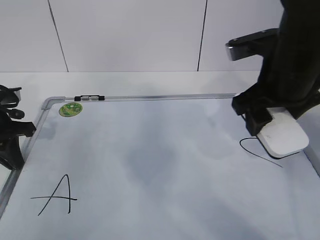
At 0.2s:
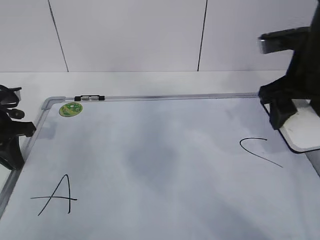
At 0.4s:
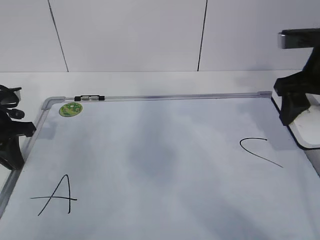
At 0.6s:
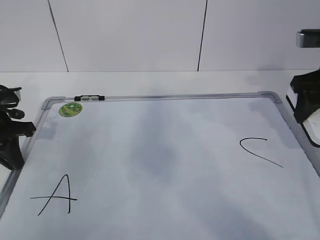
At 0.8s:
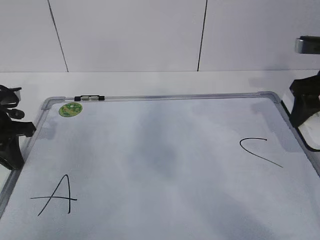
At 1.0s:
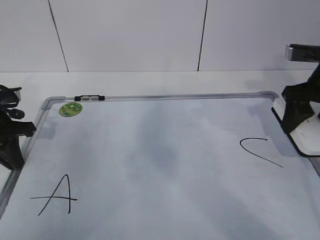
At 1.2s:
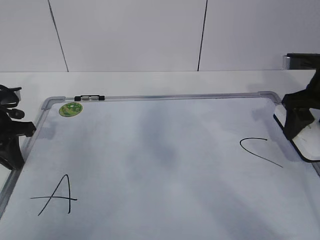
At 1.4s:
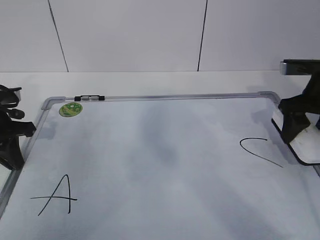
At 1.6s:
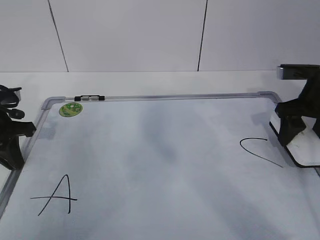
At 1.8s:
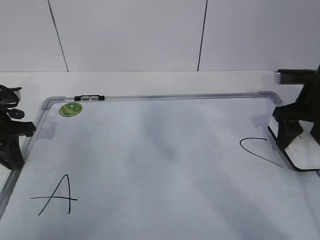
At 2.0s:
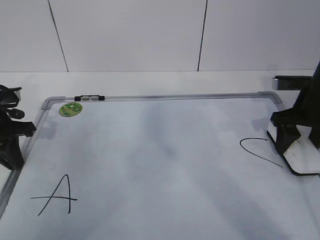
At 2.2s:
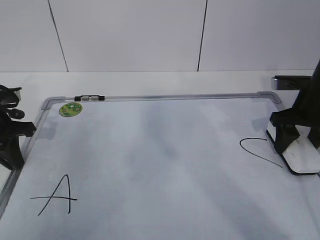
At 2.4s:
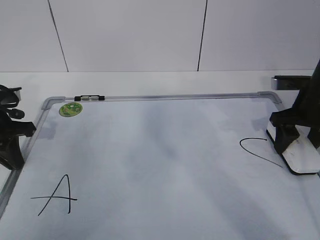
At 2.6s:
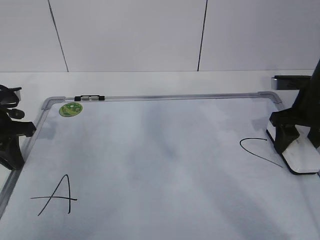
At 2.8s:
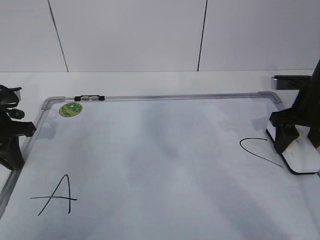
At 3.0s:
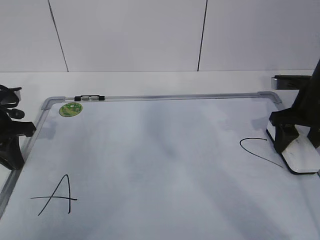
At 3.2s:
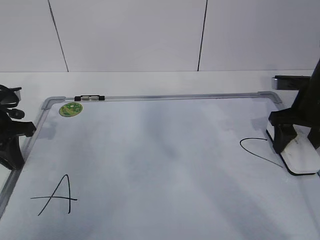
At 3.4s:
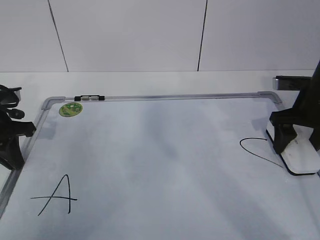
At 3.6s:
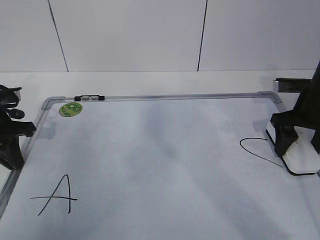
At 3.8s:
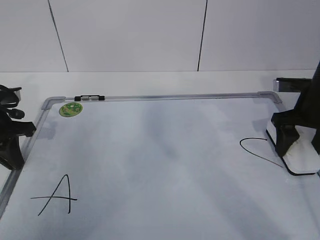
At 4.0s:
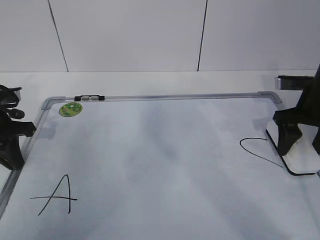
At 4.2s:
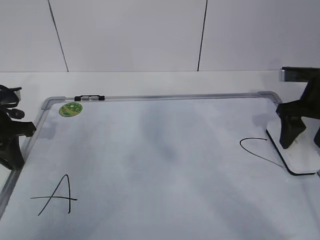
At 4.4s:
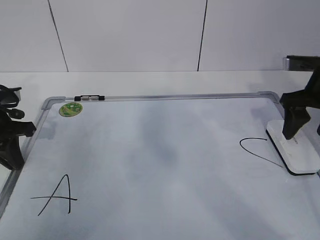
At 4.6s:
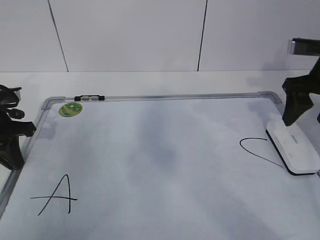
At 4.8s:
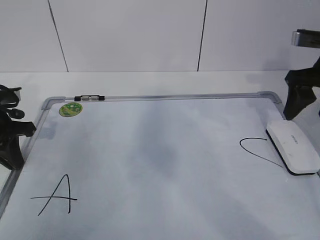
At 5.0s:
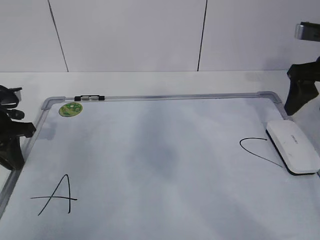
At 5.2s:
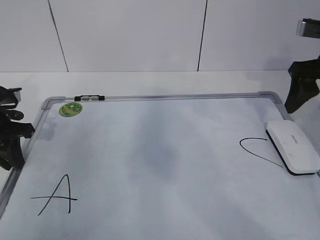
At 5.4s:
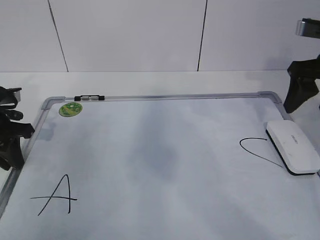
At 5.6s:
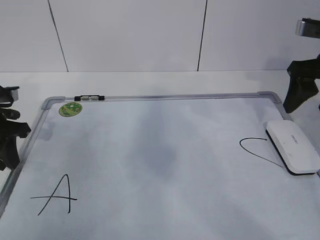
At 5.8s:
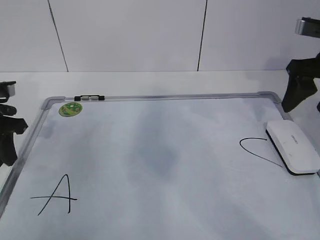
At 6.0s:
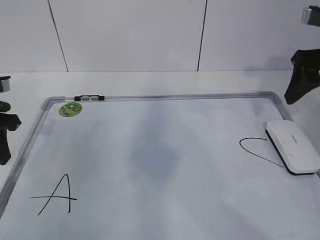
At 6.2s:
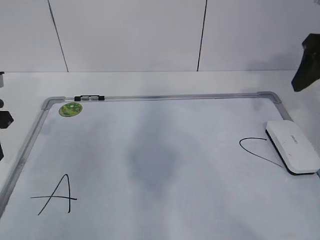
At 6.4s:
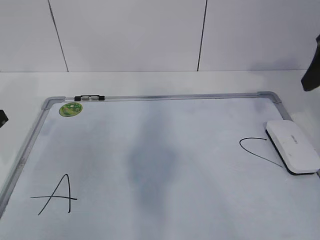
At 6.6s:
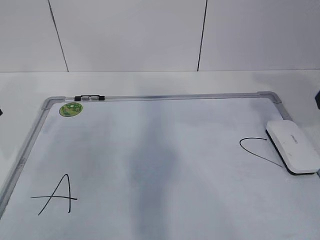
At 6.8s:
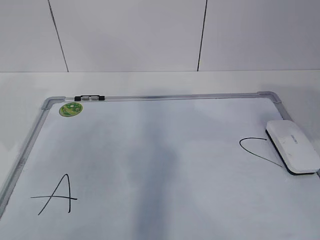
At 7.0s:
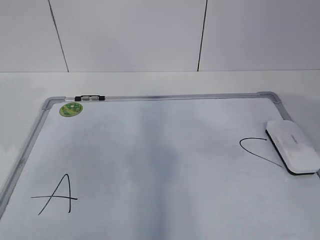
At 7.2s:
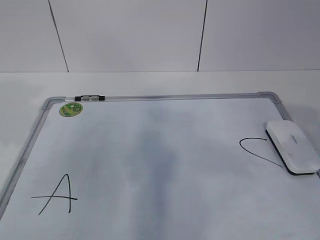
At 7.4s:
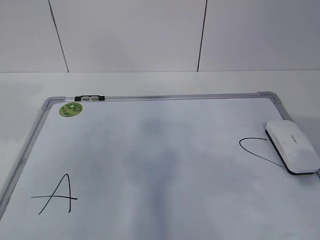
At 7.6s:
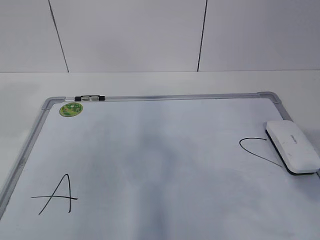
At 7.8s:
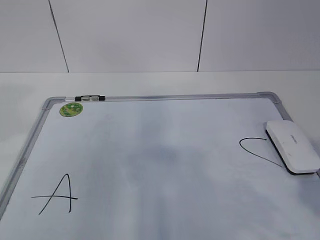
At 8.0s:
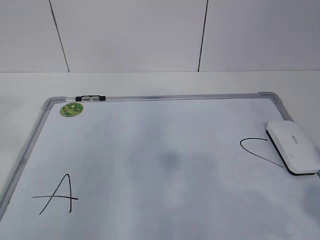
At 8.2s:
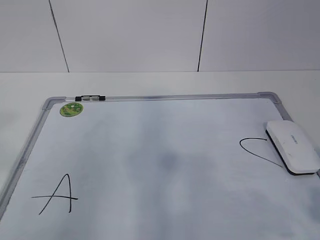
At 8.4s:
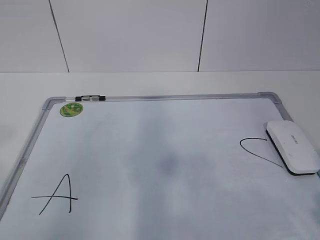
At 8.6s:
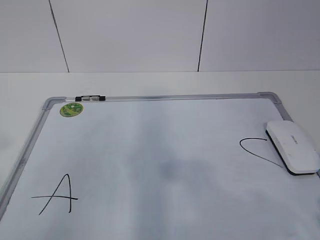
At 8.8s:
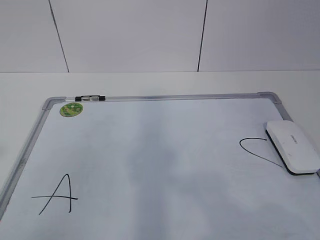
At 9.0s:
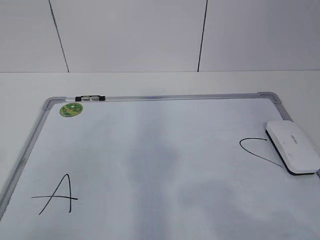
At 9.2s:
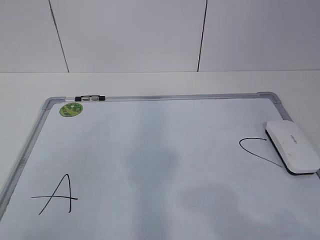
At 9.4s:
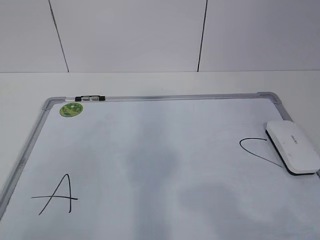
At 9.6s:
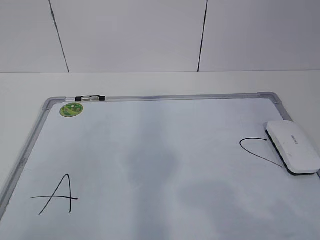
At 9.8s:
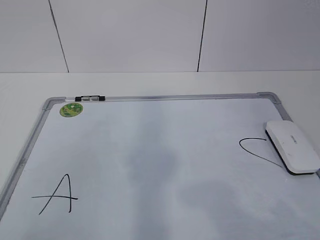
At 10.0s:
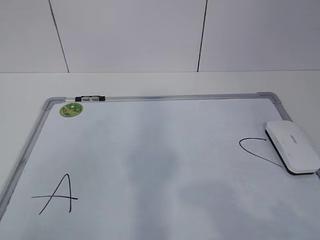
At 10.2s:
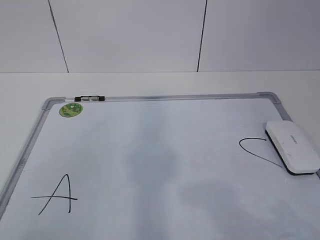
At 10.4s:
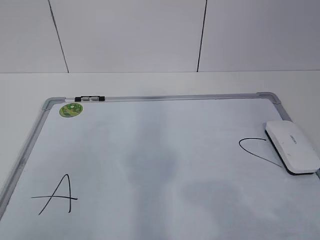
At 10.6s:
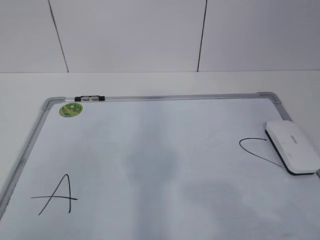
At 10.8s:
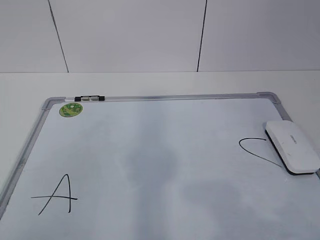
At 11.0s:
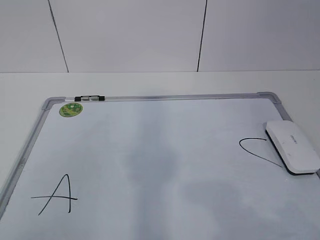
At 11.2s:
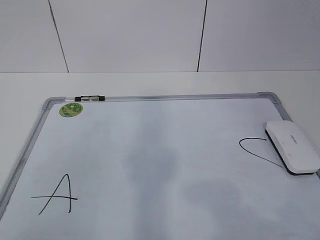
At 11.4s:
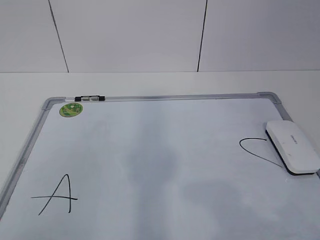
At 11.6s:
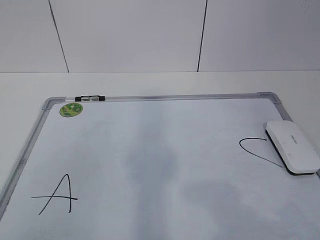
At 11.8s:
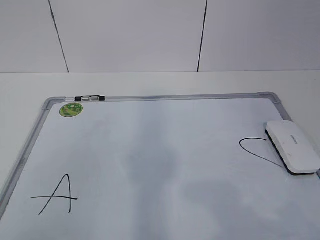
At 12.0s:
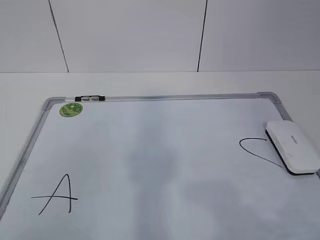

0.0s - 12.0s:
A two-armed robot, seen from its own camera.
Task of the whole recording: pick up the eraser on the blackboard and erase the letter "B".
0.0s - 1.6s: The right gripper shifts some 15 cm to the right, downward and forward.
1.6s - 4.4s: The grippers make only small movements.
4.4s - 6.0s: The left gripper opens up; the right gripper heads upward, covering some 5 cm.
6.0s - 7.6s: The right gripper travels backward by roughly 30 cm, while the left gripper shifts roughly 20 cm upward and backward.
10.4s - 12.0s: Both grippers stay about where they are.

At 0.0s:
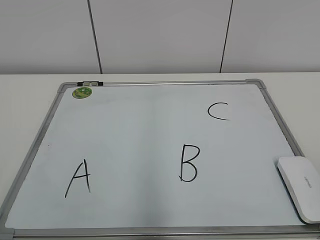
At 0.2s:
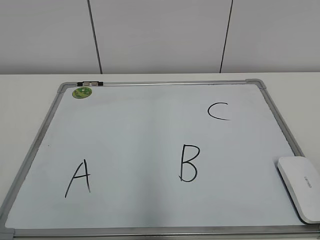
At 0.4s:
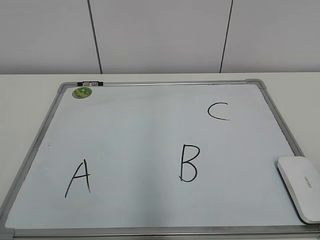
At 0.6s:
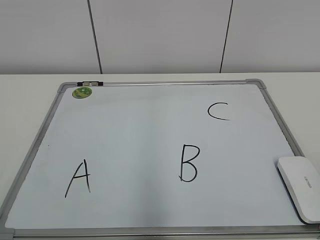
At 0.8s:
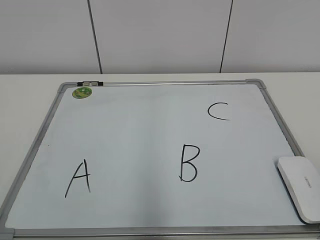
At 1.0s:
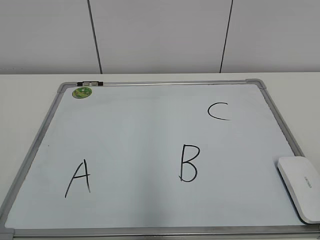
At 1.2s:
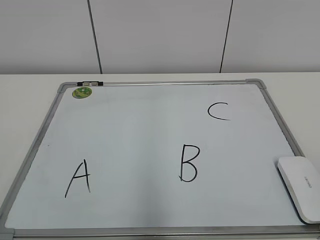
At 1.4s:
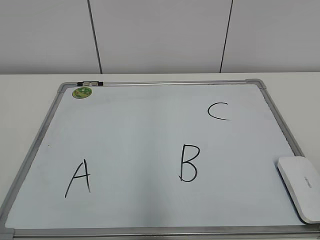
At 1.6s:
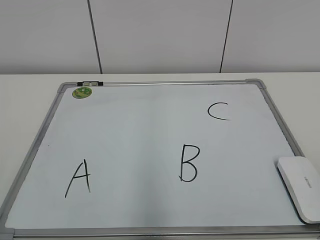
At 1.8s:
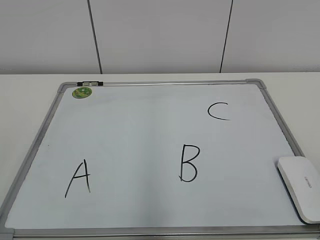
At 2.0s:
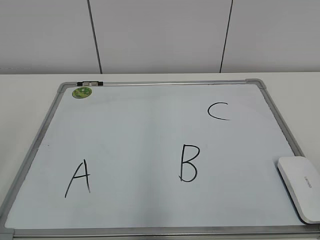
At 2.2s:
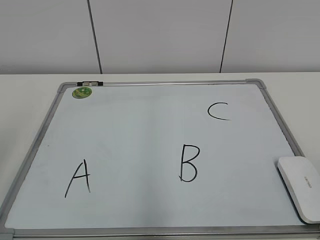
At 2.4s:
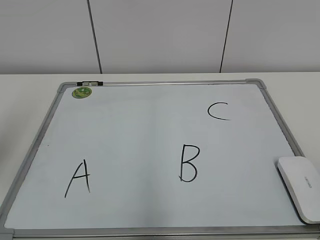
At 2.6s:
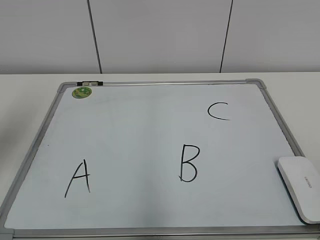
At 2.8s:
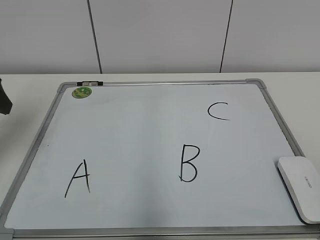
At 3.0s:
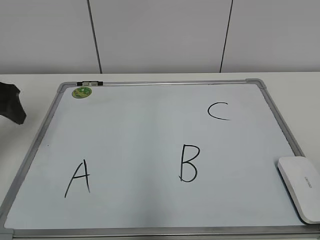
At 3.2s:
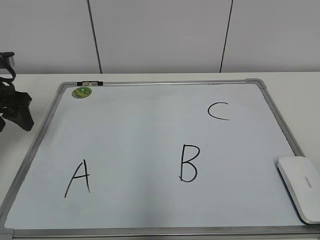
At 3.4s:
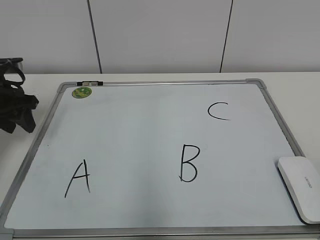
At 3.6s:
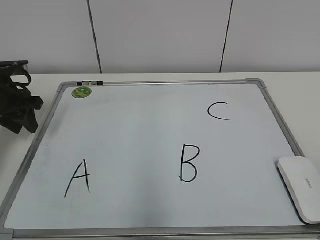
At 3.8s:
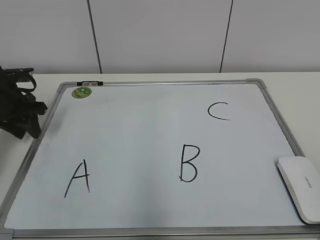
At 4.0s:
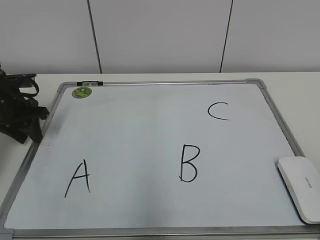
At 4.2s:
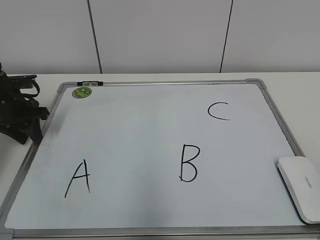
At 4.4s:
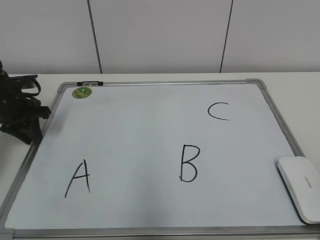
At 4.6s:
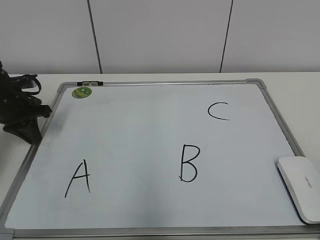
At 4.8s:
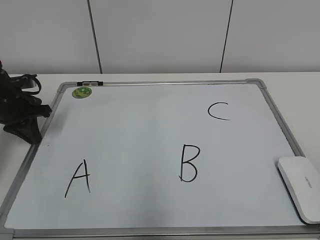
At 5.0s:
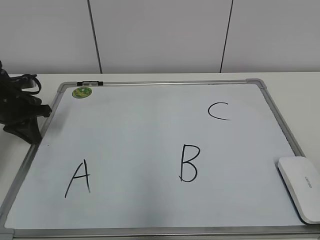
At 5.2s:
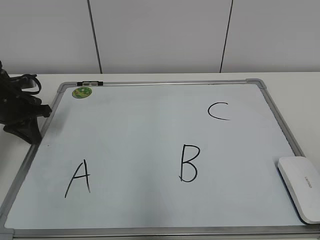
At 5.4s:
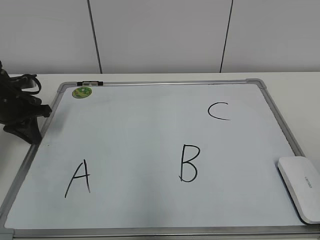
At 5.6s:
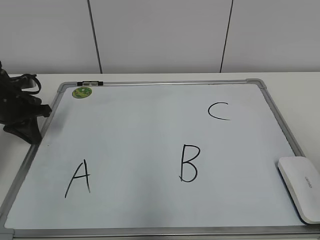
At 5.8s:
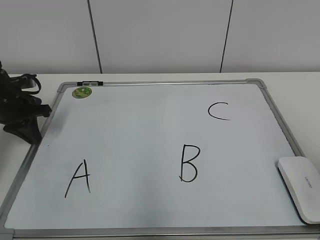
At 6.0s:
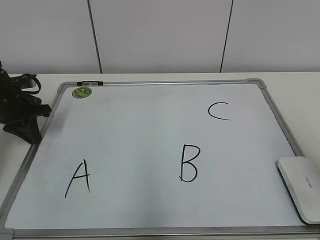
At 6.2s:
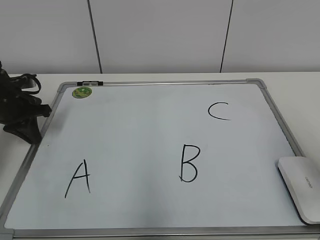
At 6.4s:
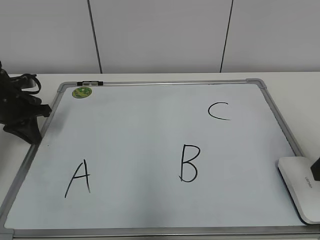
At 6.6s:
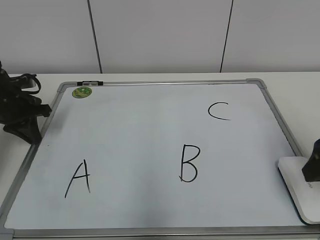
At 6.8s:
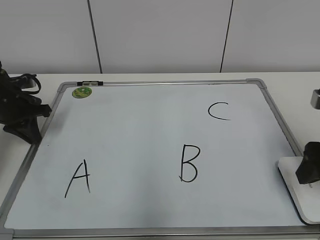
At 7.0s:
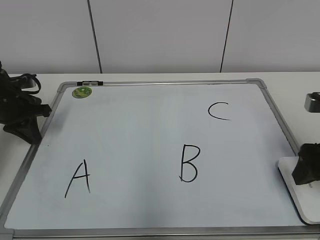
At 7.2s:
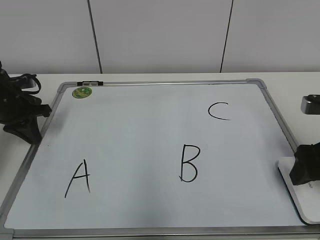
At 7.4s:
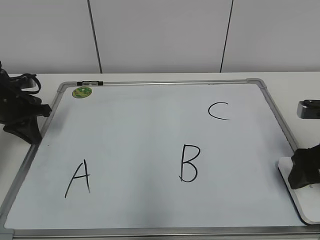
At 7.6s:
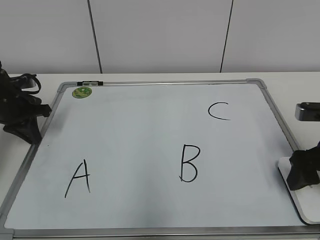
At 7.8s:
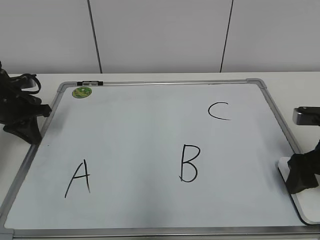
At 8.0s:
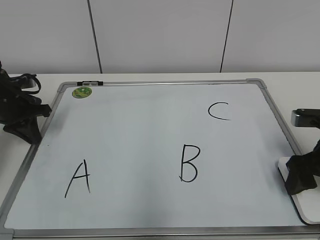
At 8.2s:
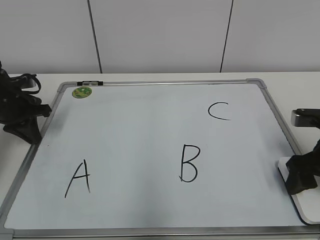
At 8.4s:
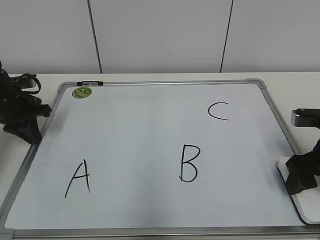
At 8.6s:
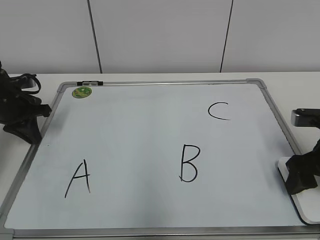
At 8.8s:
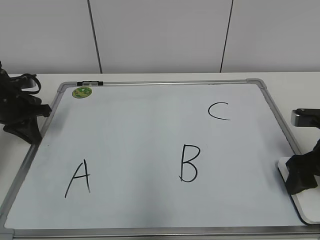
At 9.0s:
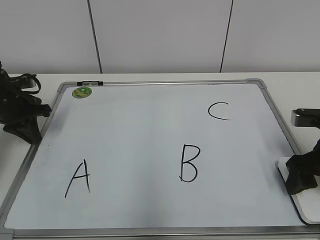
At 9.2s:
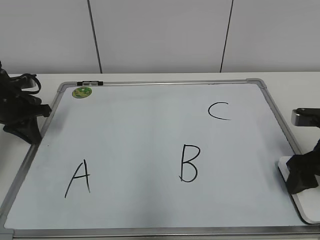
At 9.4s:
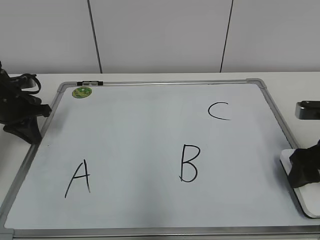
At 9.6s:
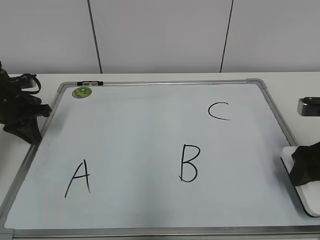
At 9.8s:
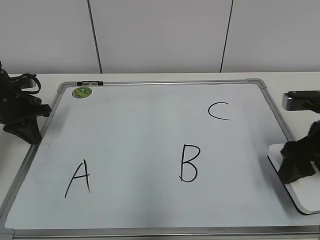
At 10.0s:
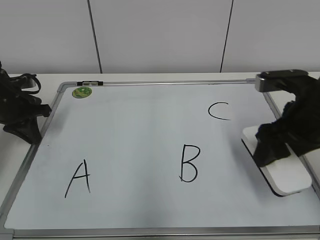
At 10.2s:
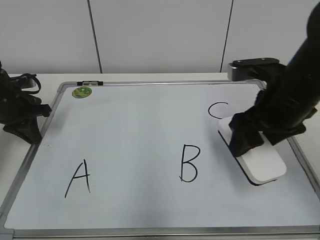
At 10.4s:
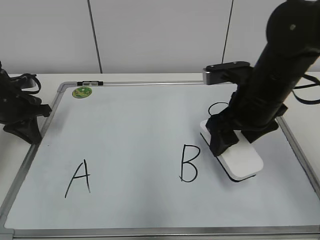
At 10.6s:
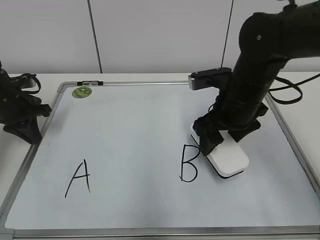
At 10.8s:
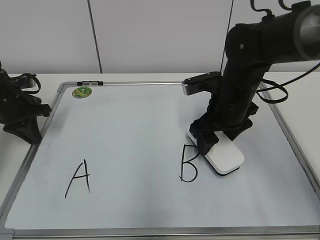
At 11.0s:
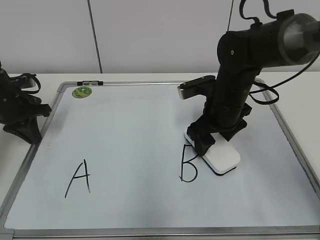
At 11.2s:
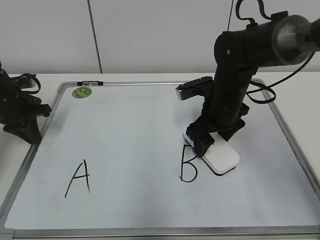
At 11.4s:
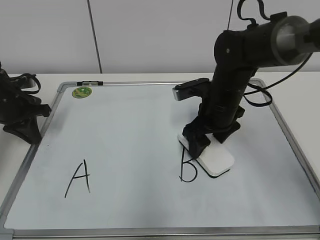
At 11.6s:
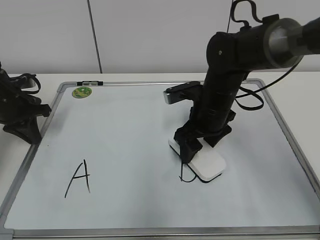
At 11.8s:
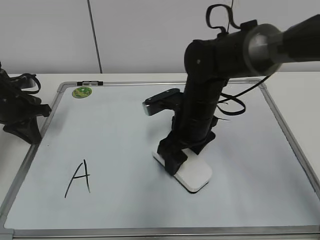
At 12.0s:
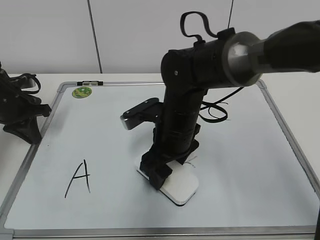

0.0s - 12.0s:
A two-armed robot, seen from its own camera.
Task of the whole recording: pick up the eraser on the blackboard and erase the letter "B".
Step, 0.0s - 4.4s: Hold the drawing board steady with your left hand.
1.6s - 3.0s: The left gripper shifts roughly 35 cm forward.
3.0s - 4.4s: The left gripper heads downward and forward, covering some 15 cm, and closes.
4.4s - 6.0s: The right gripper travels forward by about 15 cm, and closes up.
6.0s - 7.6s: The right gripper heads forward and downward, covering approximately 15 cm, and opens up.
7.6s - 9.0s: The right gripper closes up.
9.0s - 10.4s: The right gripper travels to the left and upward by about 15 cm.
10.4s - 12.0s: The right gripper heads to the left and downward, covering approximately 15 cm.
